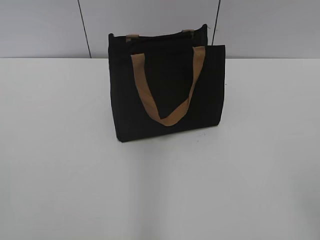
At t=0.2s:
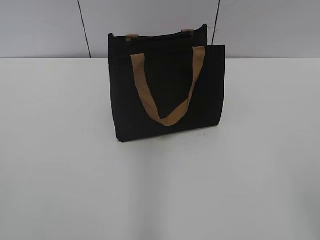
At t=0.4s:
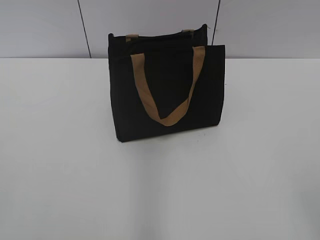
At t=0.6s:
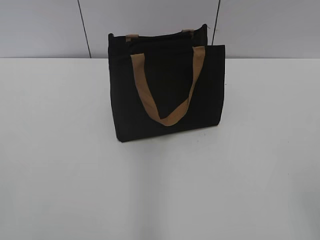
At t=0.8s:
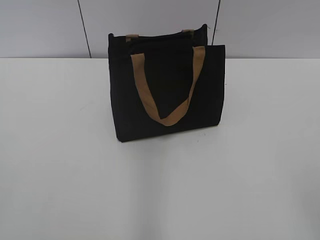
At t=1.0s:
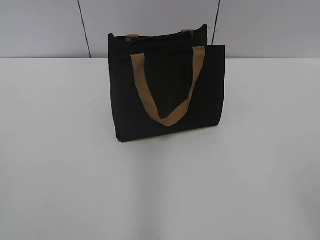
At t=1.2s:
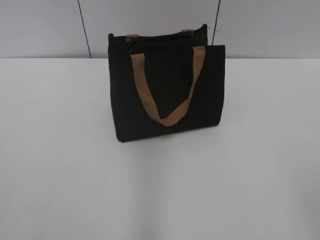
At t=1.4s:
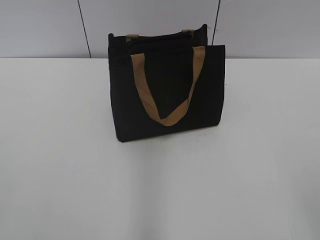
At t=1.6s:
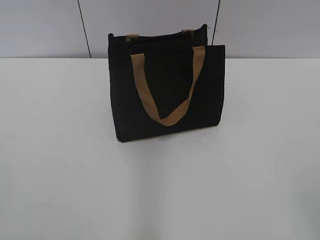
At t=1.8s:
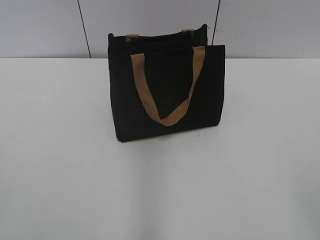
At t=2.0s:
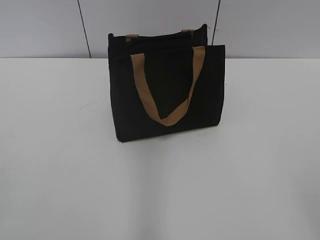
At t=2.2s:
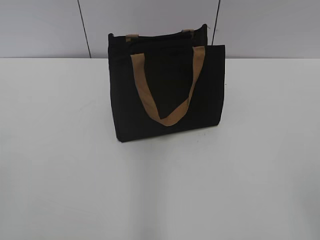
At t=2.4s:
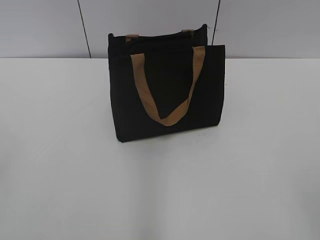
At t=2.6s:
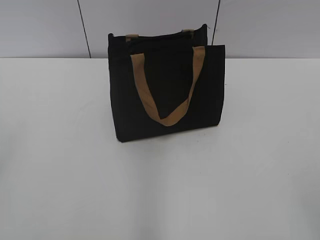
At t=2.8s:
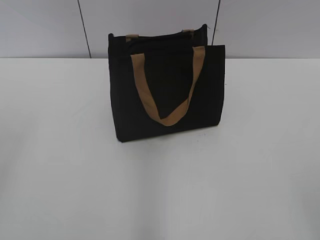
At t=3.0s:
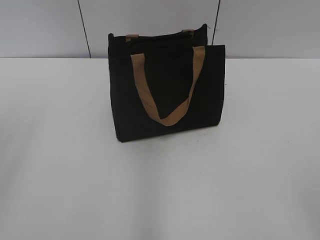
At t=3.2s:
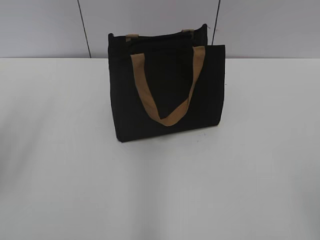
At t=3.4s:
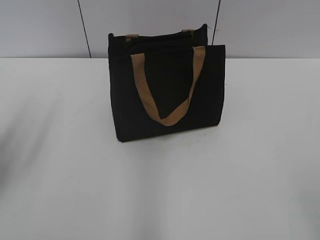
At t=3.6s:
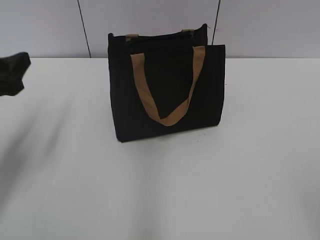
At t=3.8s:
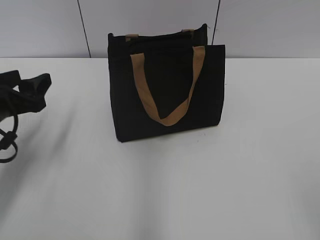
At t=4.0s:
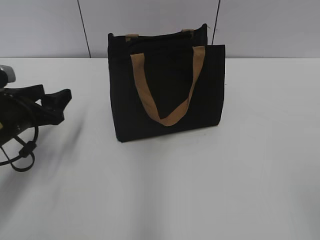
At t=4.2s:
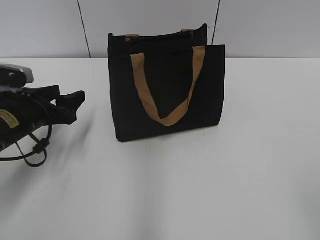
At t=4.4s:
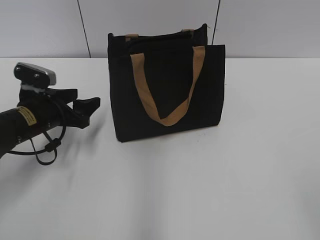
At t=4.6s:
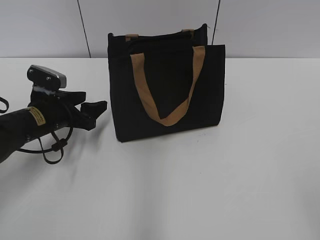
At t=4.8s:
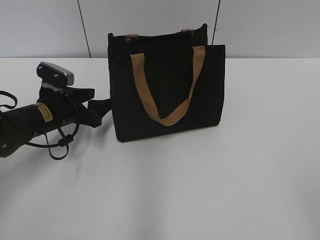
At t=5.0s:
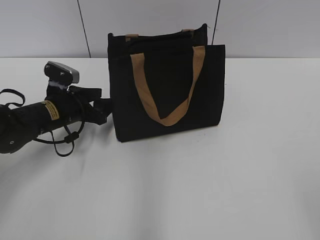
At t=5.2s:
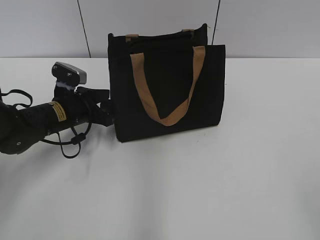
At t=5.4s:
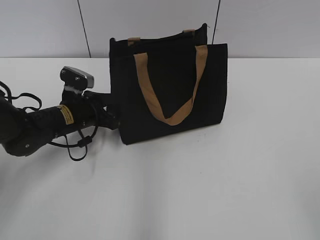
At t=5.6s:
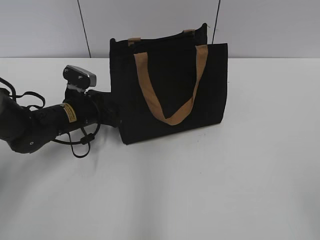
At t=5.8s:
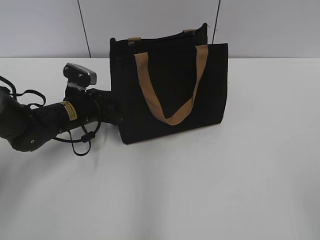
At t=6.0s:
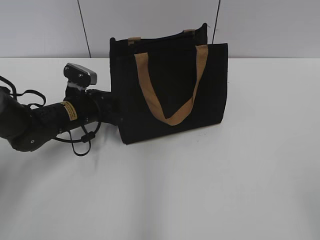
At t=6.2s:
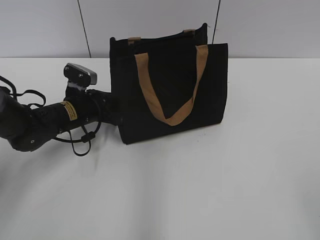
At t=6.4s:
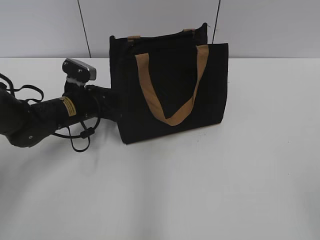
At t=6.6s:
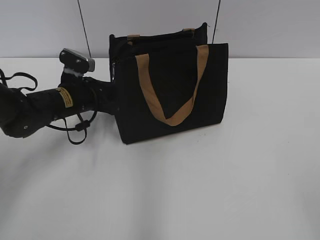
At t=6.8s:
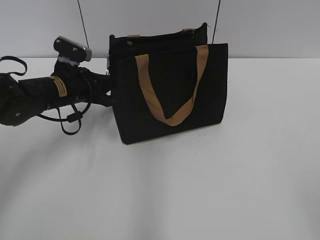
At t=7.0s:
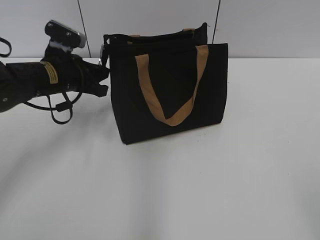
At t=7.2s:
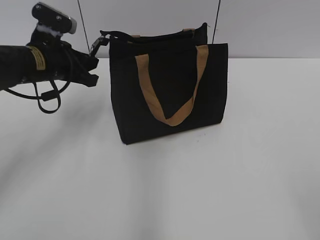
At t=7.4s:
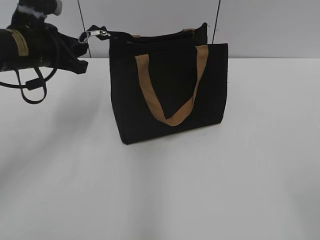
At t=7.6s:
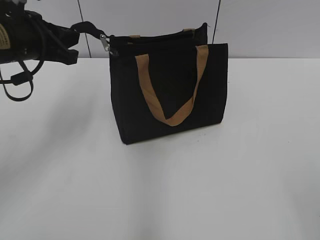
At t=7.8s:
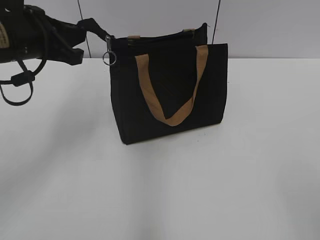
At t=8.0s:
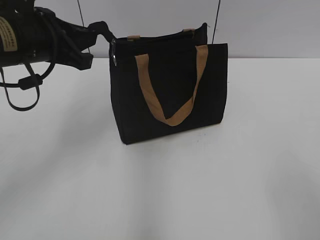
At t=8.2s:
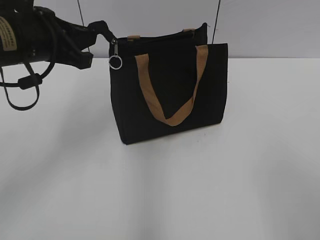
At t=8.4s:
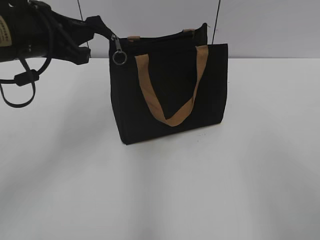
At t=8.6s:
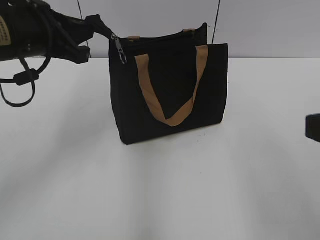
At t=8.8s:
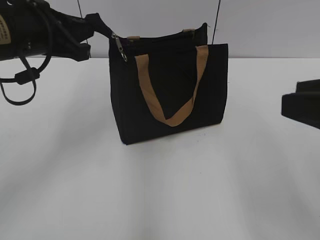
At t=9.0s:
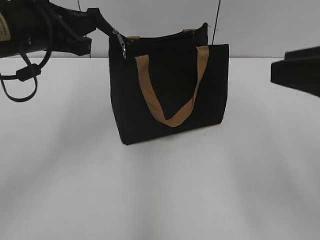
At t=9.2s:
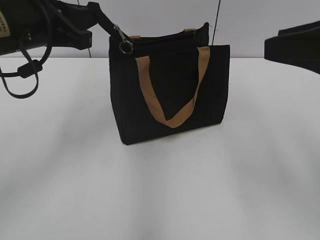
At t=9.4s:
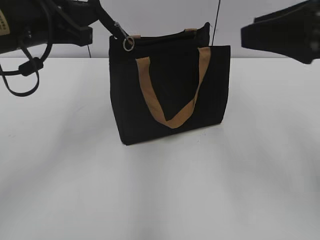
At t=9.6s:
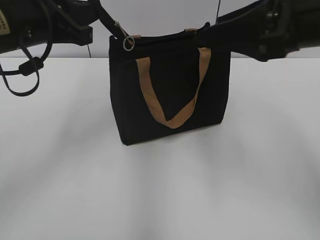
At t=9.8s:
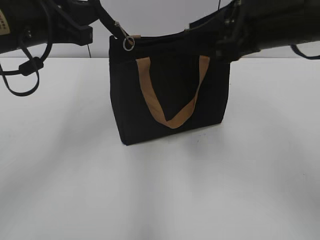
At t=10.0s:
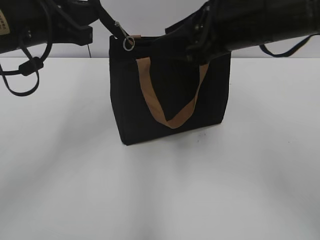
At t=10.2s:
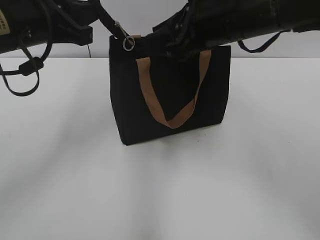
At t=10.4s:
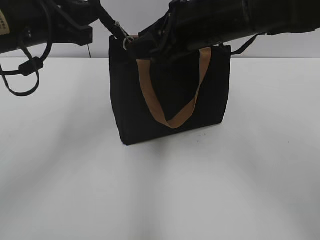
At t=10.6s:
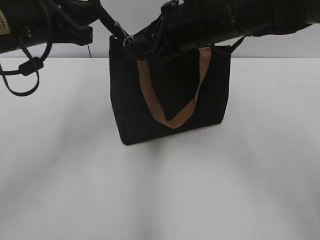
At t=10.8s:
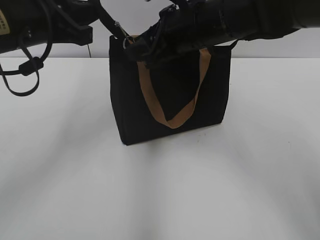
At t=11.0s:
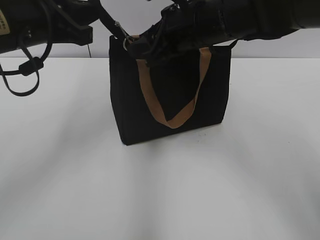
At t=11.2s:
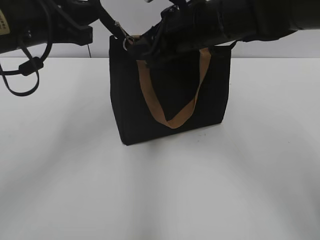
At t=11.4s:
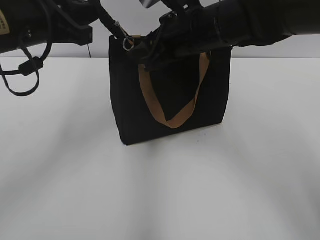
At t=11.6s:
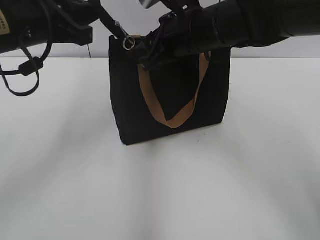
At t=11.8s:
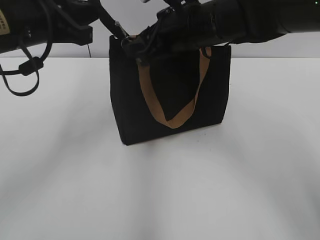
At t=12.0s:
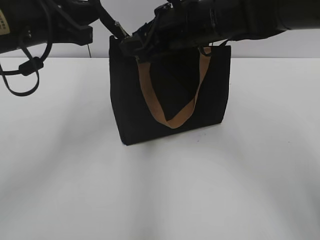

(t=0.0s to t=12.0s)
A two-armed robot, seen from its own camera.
t=3.0s - t=4.4s: The left gripper goes about 30 cm downward and forward.
t=4.4s - t=6.0s: The left gripper is displaced to the right and forward by some 10 cm, and closes.
t=6.0s - t=7.6s: The left gripper shifts approximately 15 cm upward, and closes up.
t=7.6s - t=9.0s: The left gripper ends up roughly 5 cm from where it was. Meanwhile the right gripper is displaced forward by some 15 cm.
t=9.0s - t=10.4s: The right gripper moves forward and to the left, roughly 20 cm.
t=10.4s - t=12.0s: The right gripper changes place by approximately 5 cm.

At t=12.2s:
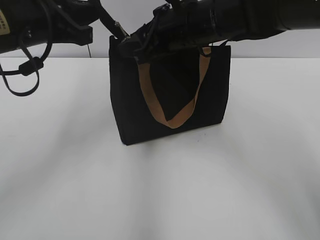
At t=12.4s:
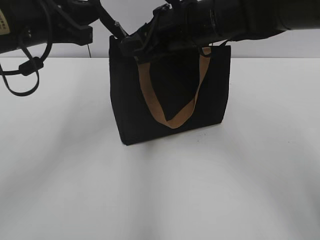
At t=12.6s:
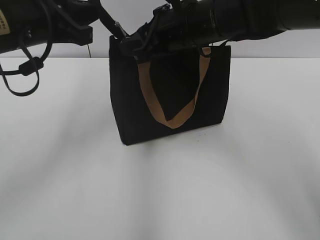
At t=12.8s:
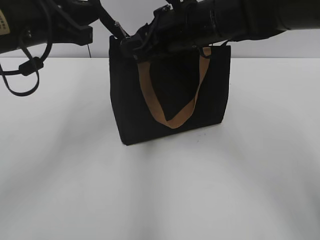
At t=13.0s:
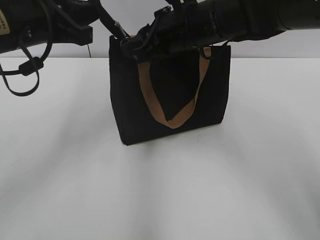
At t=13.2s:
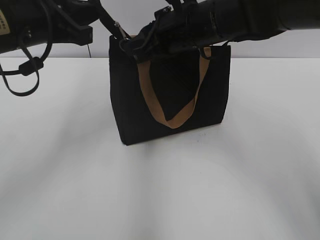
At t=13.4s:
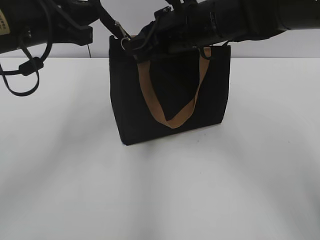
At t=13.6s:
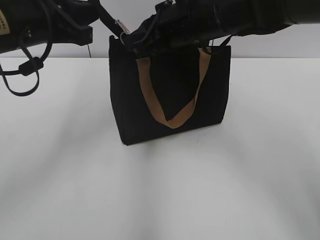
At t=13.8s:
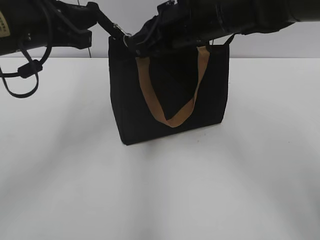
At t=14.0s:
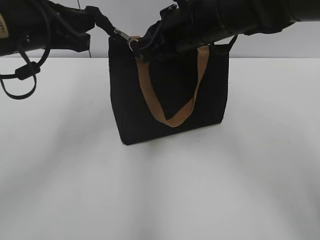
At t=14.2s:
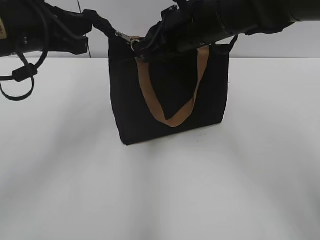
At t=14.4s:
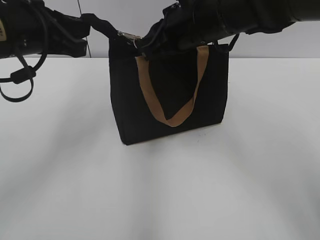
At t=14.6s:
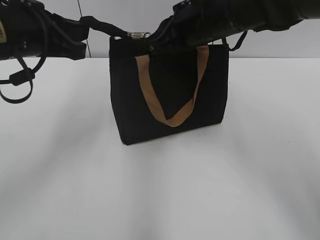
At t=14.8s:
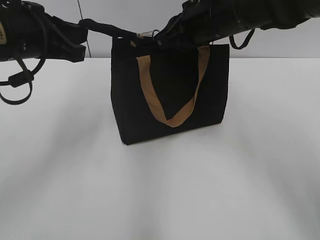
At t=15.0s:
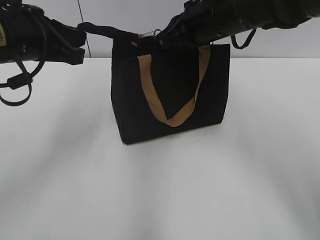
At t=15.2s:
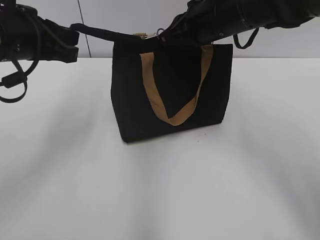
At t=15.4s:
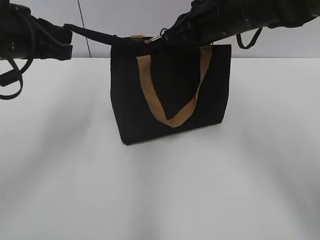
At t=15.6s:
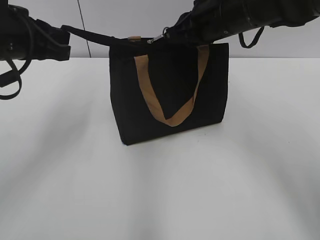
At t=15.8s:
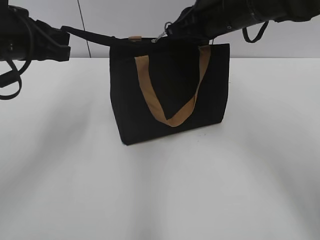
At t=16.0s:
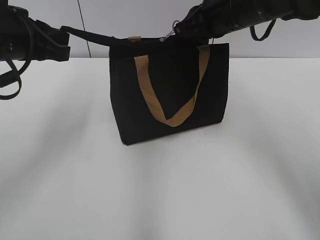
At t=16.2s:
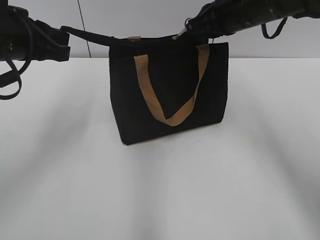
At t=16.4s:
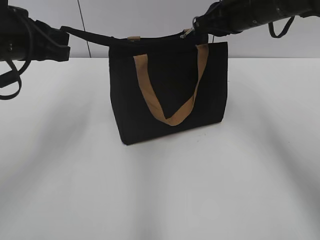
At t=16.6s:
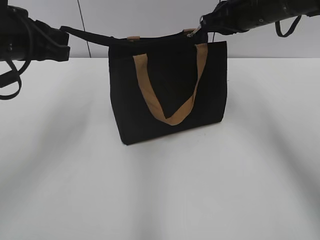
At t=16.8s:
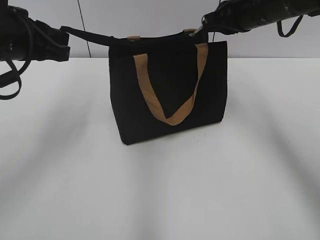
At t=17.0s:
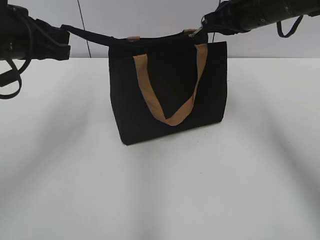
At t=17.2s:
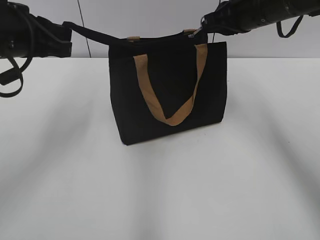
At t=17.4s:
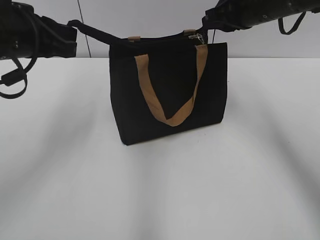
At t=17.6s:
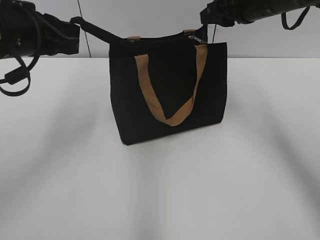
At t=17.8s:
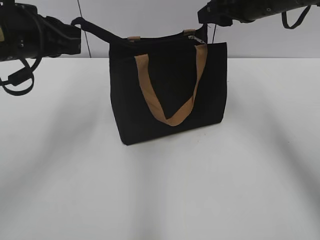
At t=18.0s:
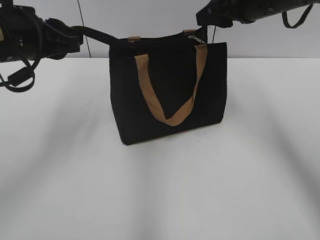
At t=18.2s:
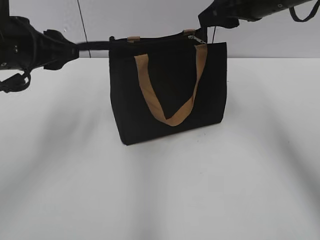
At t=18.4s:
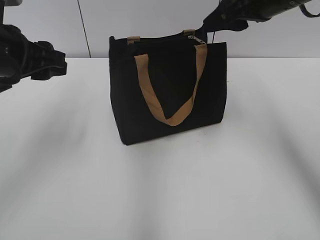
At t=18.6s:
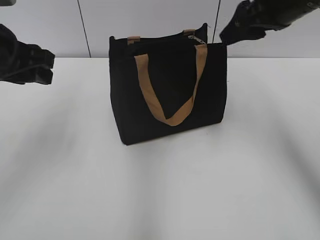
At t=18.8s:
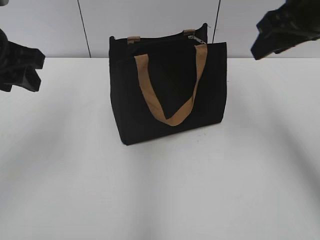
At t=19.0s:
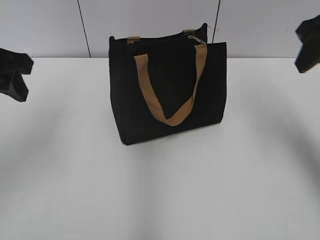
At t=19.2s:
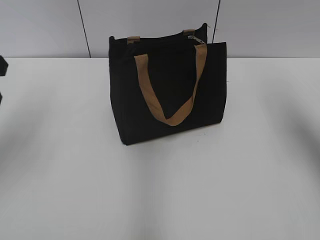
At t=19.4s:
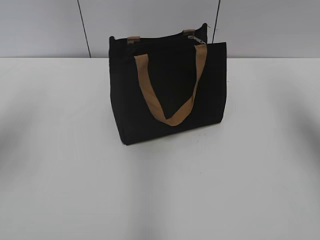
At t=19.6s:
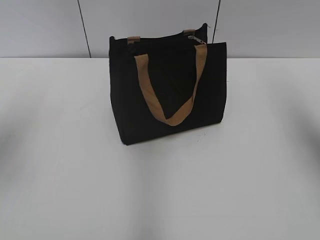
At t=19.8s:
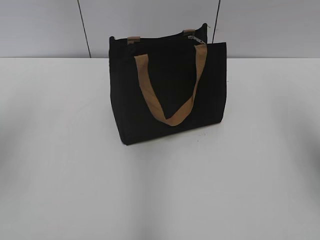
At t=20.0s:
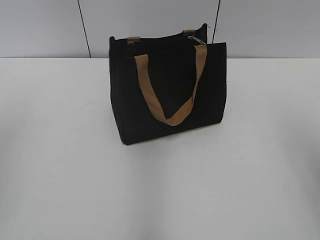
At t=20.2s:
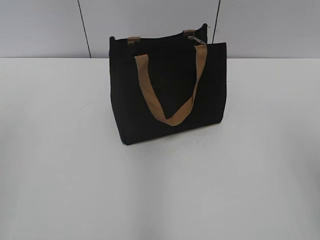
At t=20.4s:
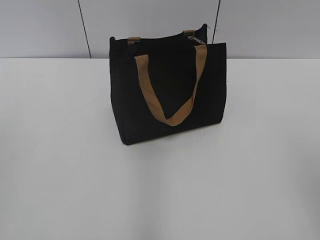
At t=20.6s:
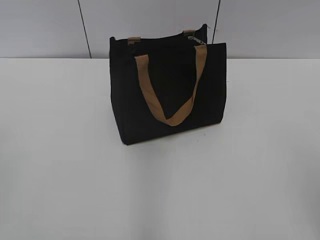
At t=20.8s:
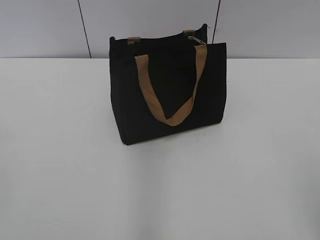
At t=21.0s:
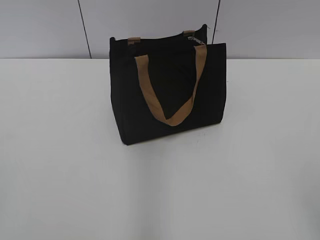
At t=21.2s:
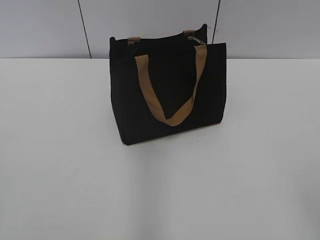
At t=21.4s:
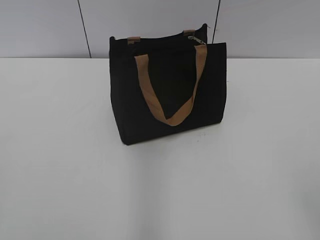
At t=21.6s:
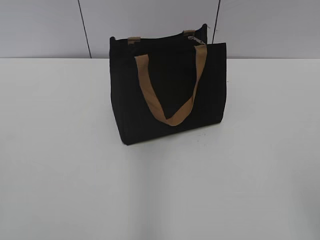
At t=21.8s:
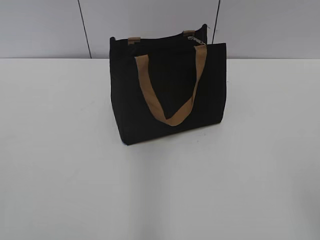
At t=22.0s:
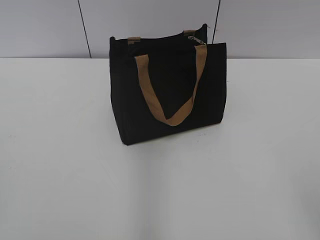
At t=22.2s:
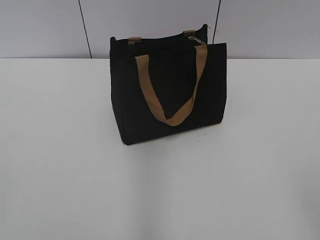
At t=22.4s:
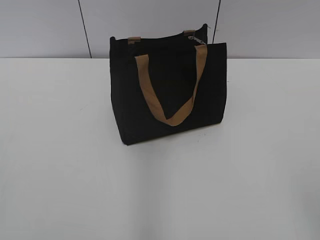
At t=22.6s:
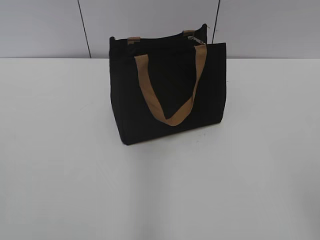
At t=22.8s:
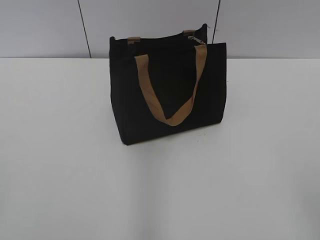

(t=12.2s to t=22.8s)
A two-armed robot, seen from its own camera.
Step, t=12.2s - t=17.2s: Zip up the bag with your right hand.
Step, t=17.6s - t=18.2s: Grab the zipper with your left hand.
t=12.2s - t=13.8s: The right gripper closes its fingers.
t=13.8s - t=15.2s: The grippers make only small movements.
t=15.2s - t=16.8s: The right gripper heads to the right, covering some 5 cm.
t=16.8s - t=18.2s: The right gripper opens its fingers. The left gripper opens its fingers.
t=18.2s - t=19.8s: The right gripper travels backward and to the right by some 20 cm. Meanwhile the left gripper goes approximately 10 cm to the left.
t=19.8s - t=21.2s: The right gripper shifts about 25 cm backward.
